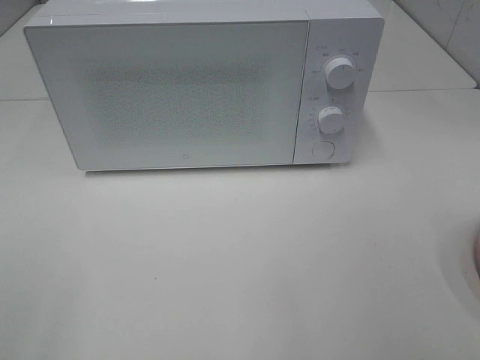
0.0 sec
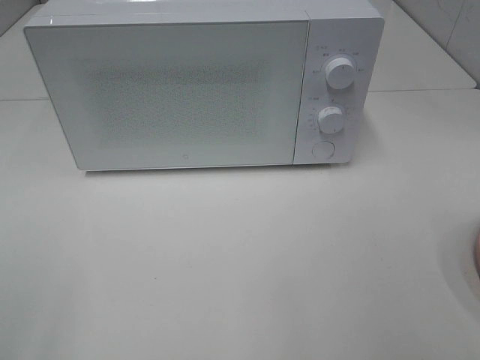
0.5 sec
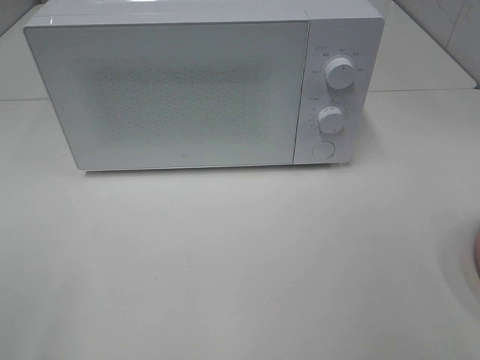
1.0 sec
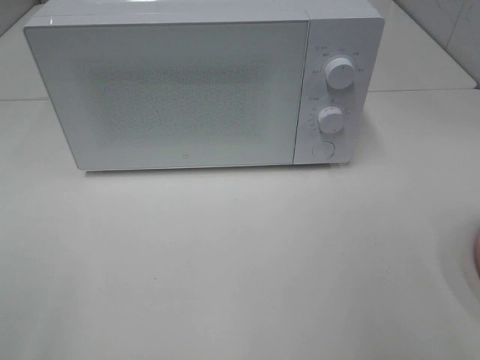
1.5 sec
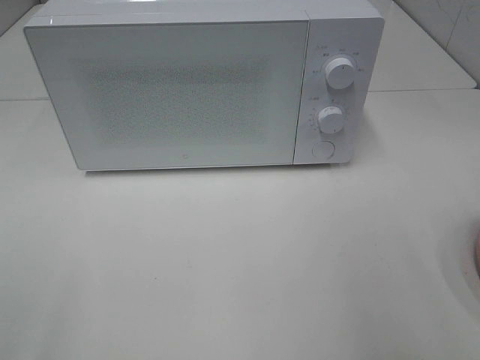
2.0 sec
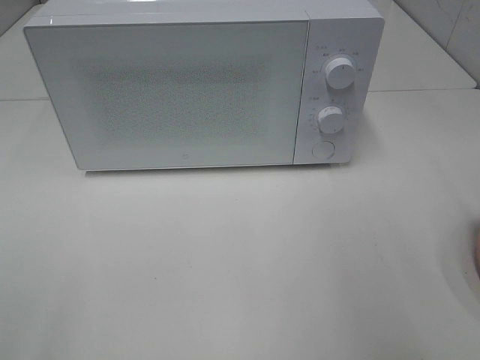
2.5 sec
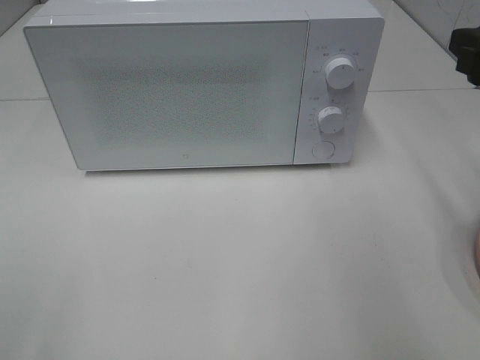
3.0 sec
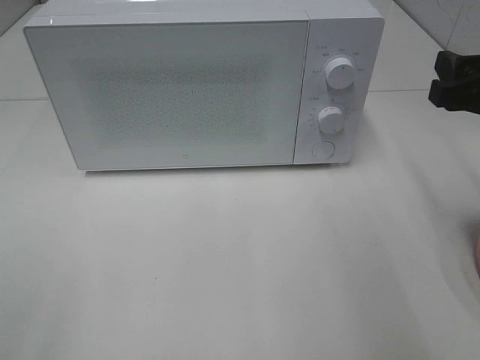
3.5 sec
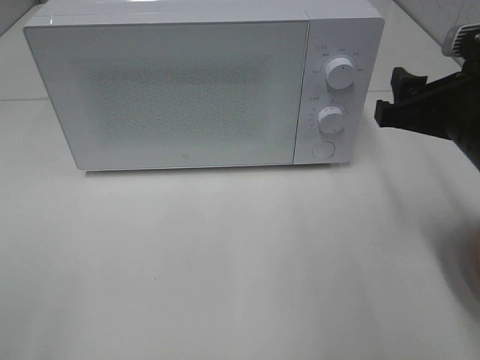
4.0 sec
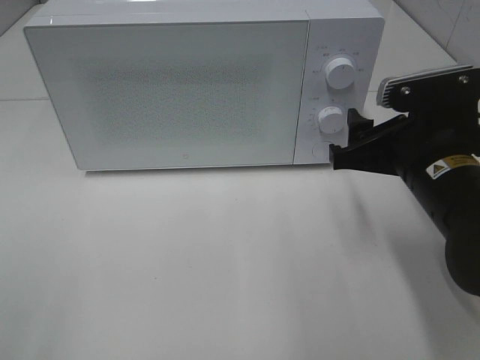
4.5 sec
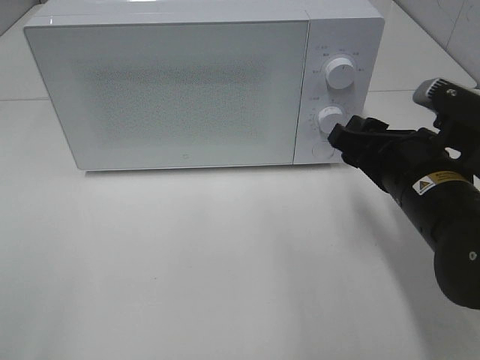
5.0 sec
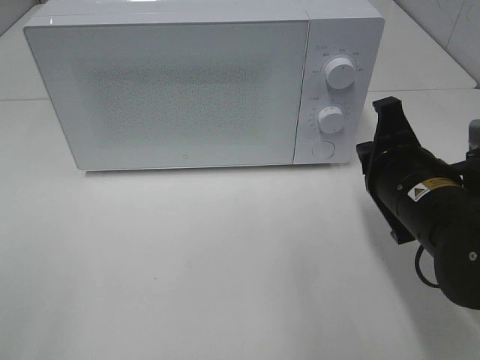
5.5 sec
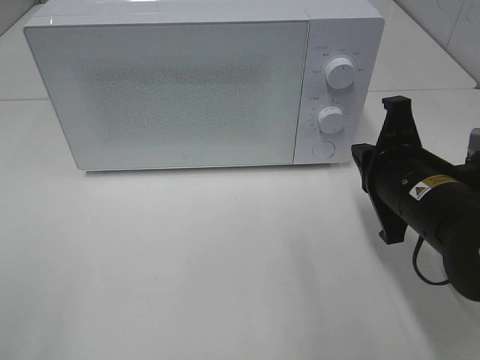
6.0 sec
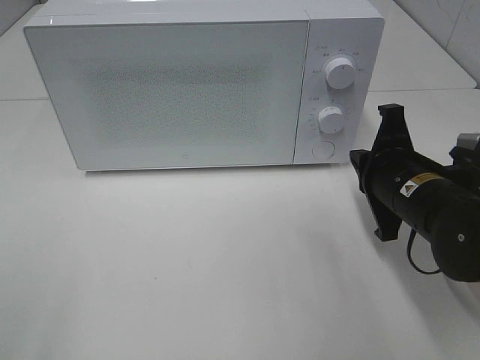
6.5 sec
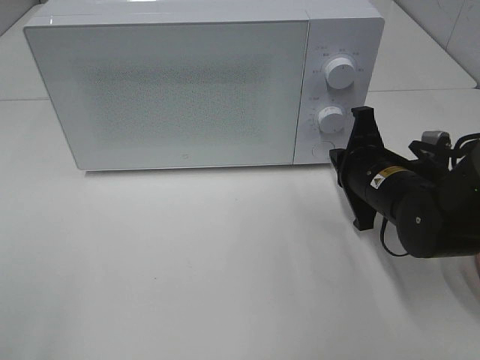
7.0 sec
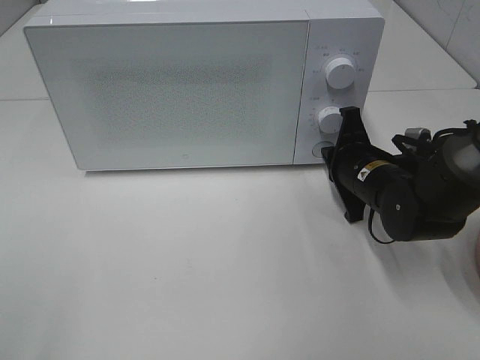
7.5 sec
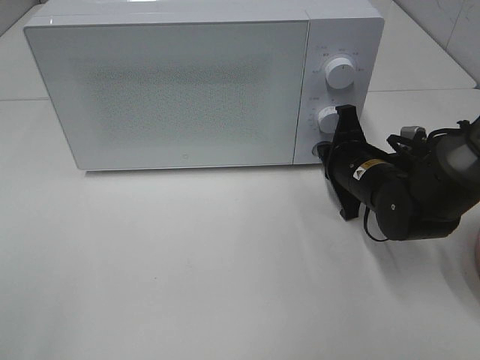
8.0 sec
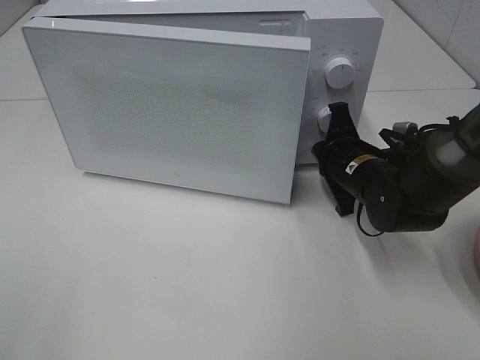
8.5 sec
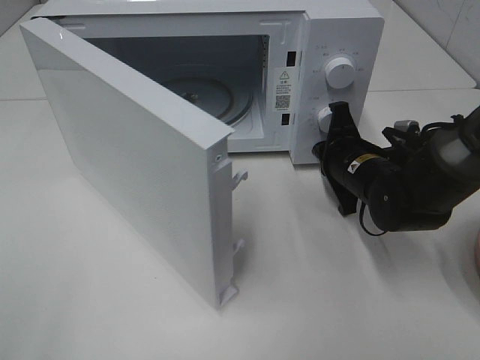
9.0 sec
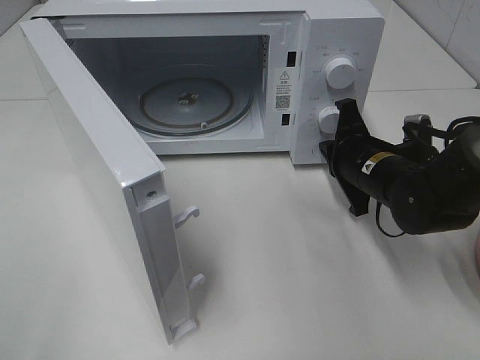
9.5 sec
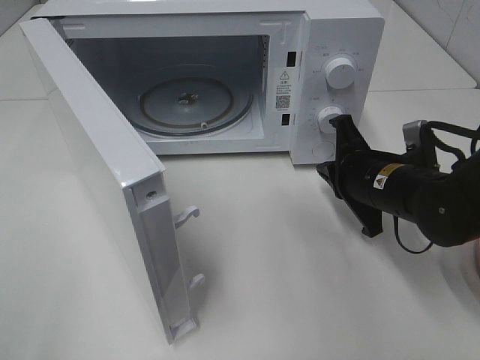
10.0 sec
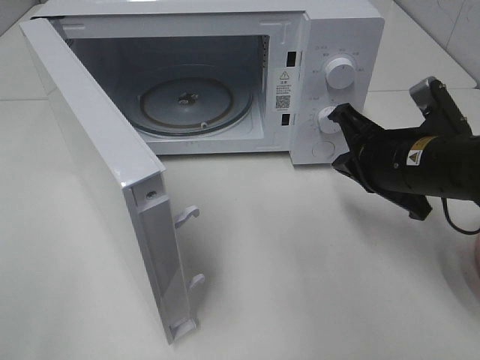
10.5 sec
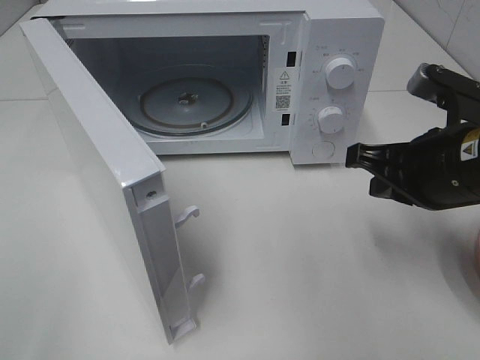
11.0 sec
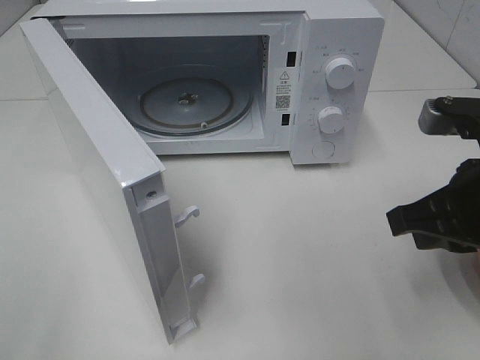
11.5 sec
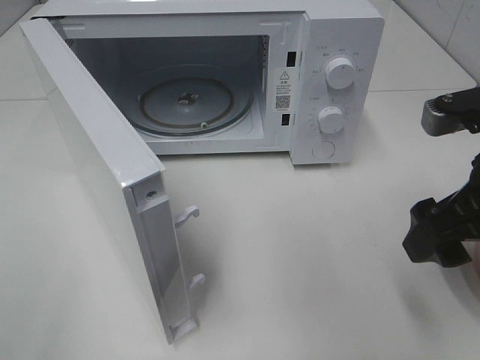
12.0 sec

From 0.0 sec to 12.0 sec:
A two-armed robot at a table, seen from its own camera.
Task of the whole recording: Heat the burger.
Step, from 0.0 sec to 9.5 sec: Right hand: press the switch.
From 2.0 sec to 4.0 sec: The right gripper is displaced forward, downward and to the left by some 15 cm.
From 4.0 sec to 6.0 sec: The right gripper is displaced downward by approximately 5 cm, and closes its fingers.
From 6.0 sec to 8.0 sec: The right gripper shifts approximately 15 cm forward and downward.
From 10.0 sec to 12.0 sec: The right gripper goes roughly 15 cm upward, backward and to the right, and opens.

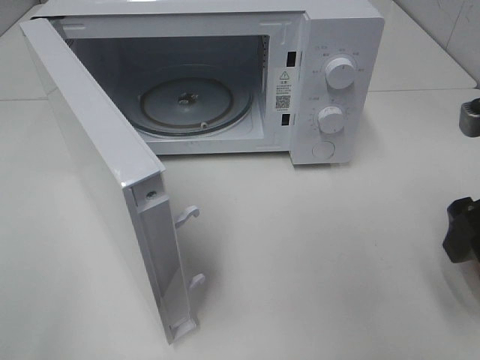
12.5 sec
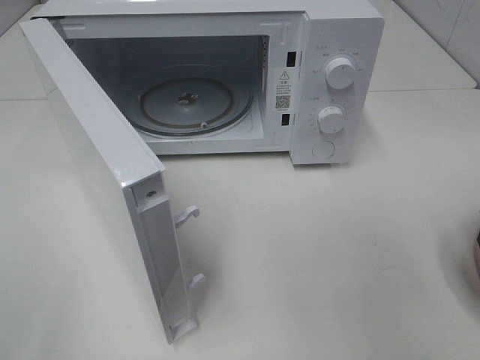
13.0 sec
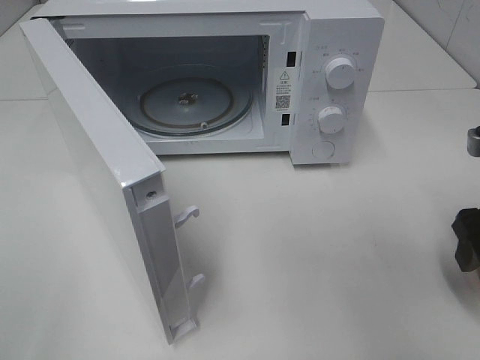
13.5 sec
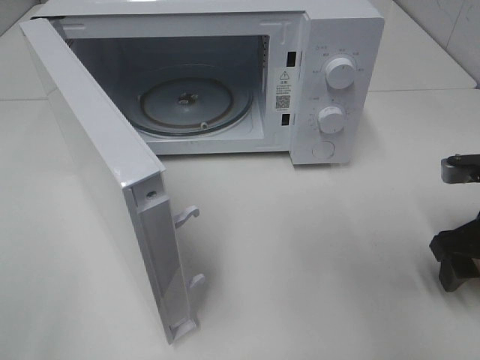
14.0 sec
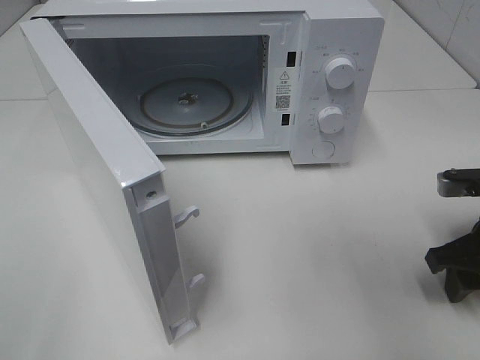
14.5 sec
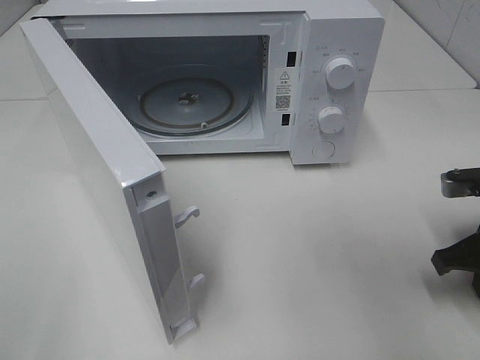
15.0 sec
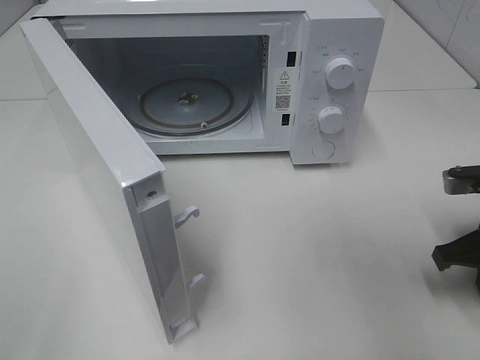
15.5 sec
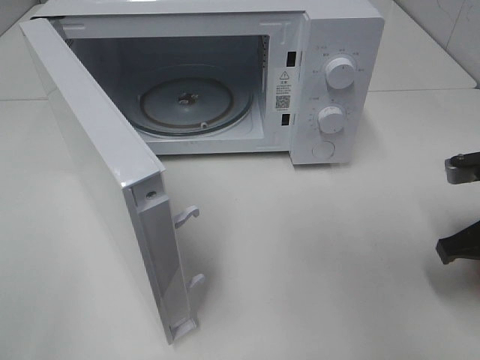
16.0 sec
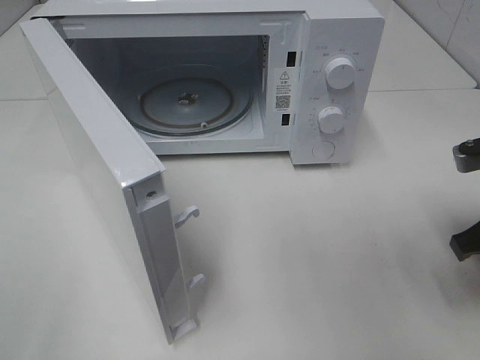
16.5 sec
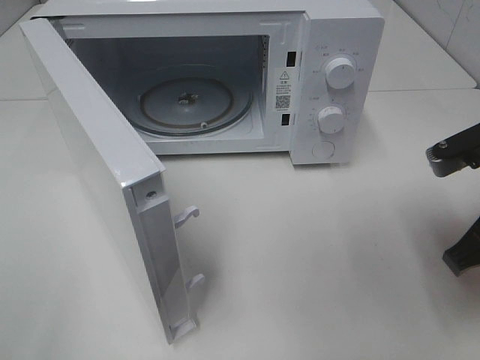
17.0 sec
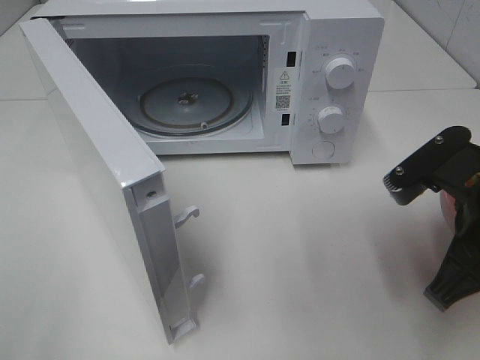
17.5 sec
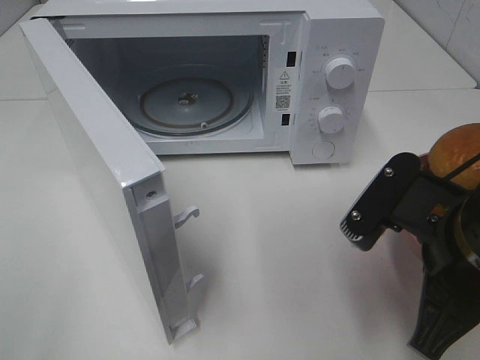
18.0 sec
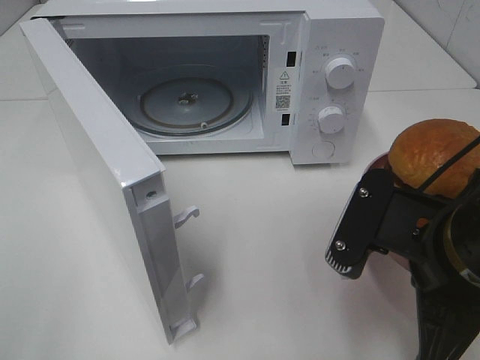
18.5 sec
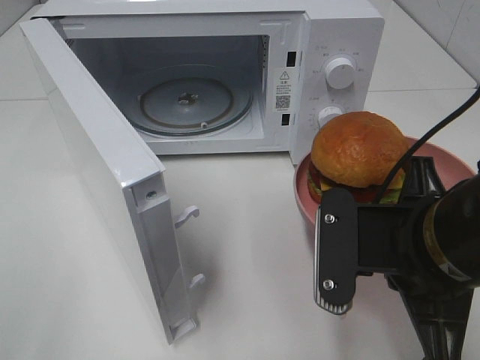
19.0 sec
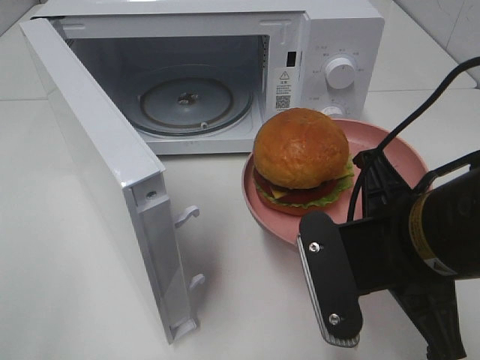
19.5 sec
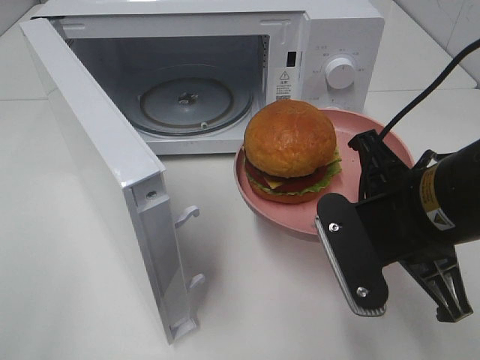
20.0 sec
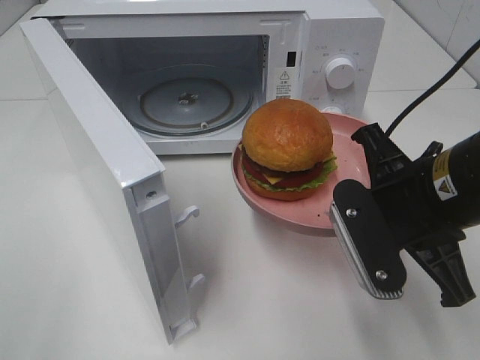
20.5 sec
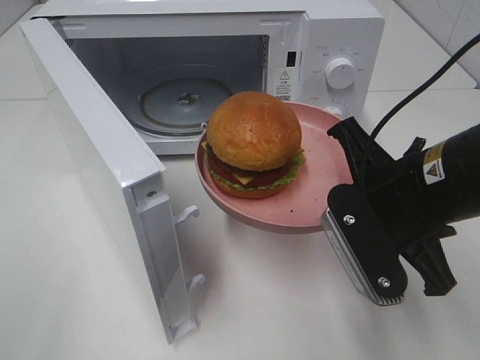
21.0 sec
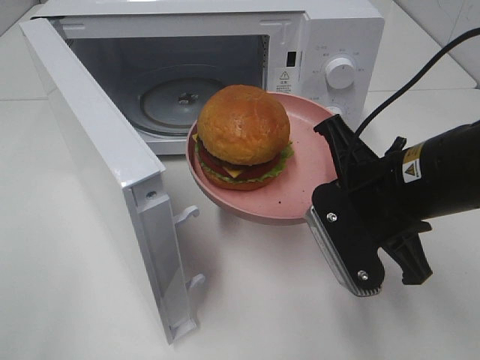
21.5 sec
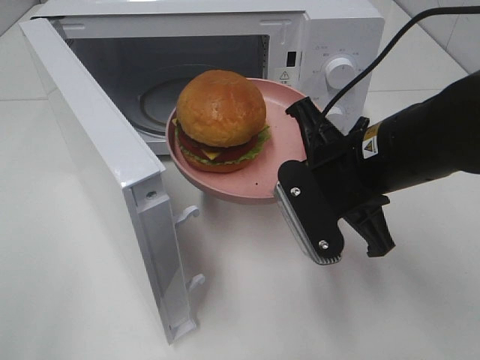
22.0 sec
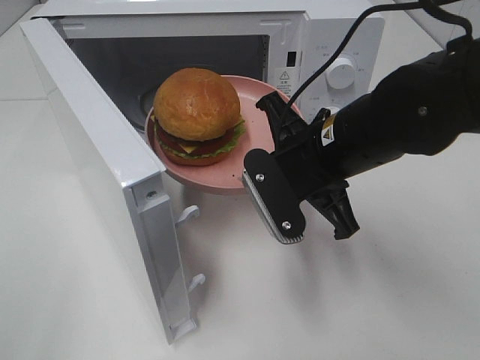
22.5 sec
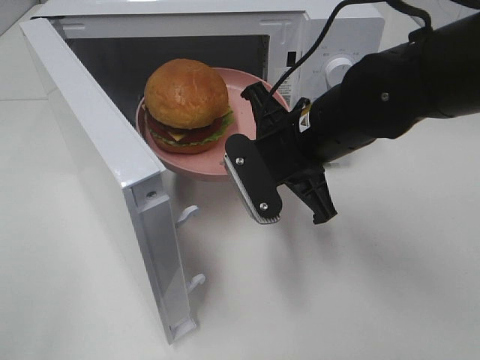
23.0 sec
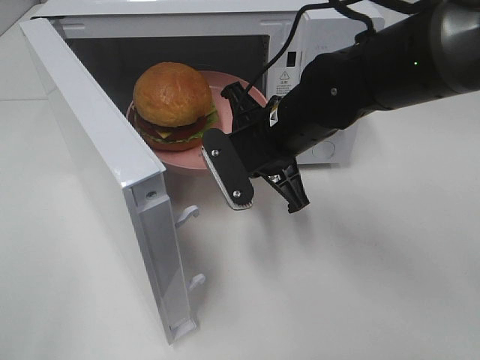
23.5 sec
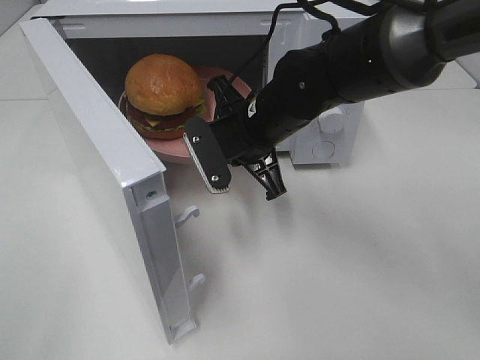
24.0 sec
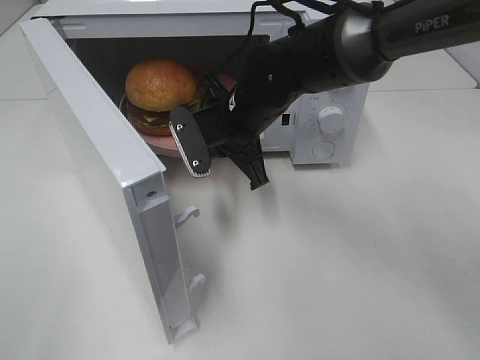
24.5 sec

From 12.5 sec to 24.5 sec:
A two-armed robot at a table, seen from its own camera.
Task of the whole recording: Heat the burger.
Step, from 12.5 sec to 15.0 sec: Right hand: grab the plate with the hamburger.
From 12.5 sec to 14.5 sec: The right gripper moves downward, roughly 10 cm.
From 14.5 sec to 16.5 sec: The right gripper goes approximately 5 cm upward, and closes up.
From 16.5 sec to 18.5 sec: The right gripper heads to the left and backward, covering roughly 15 cm.
From 18.5 sec to 20.5 sec: The right gripper shifts roughly 5 cm forward.
From 20.5 sec to 22.5 sec: The right gripper is displaced to the left and forward by roughly 10 cm.
From 22.5 sec to 24.5 sec: The right gripper shifts some 15 cm forward and to the left.

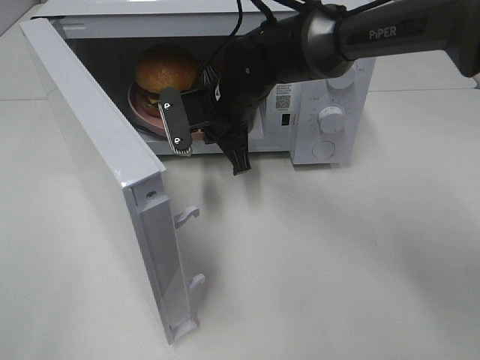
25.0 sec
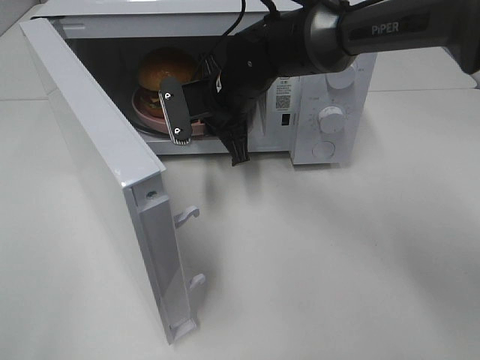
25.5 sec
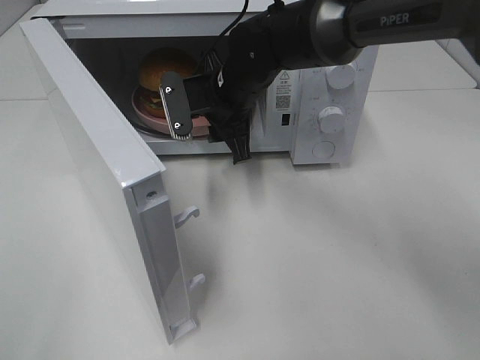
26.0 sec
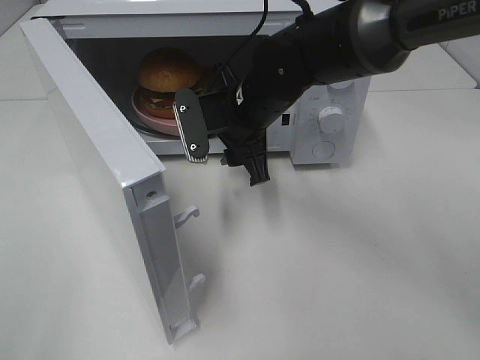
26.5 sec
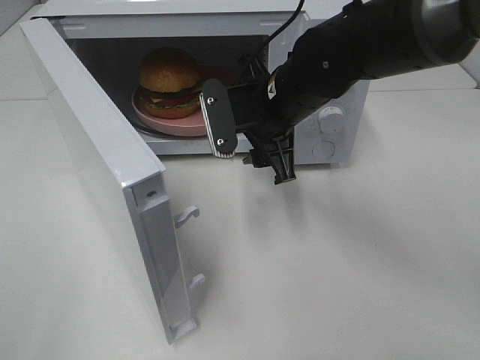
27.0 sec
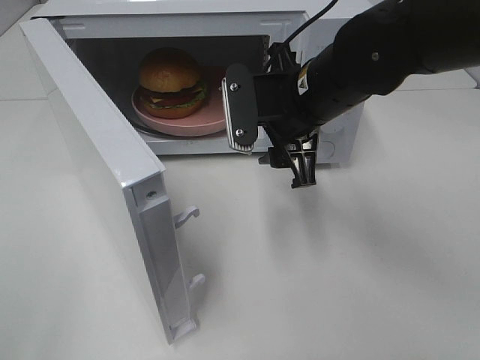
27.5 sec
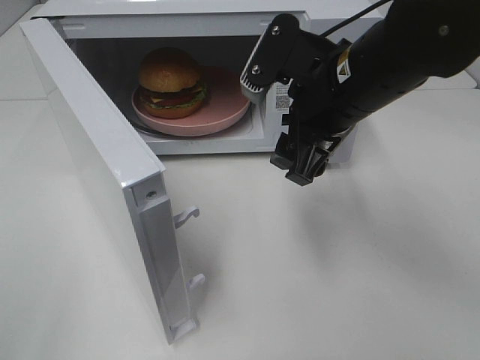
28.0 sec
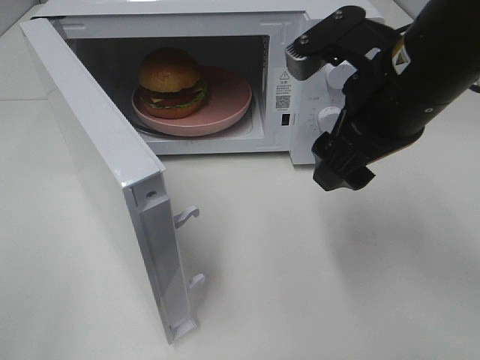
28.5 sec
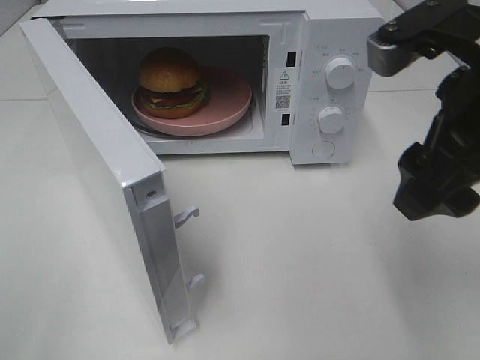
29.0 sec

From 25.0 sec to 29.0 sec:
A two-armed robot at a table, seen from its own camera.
Task of the whole recording: Heat the burger.
From 25.0 sec to 27.0 sec: The right gripper travels to the right and backward by some 10 cm, and opens its fingers.
From 27.0 sec to 29.0 sec: The right gripper heads backward, to the right and upward, covering approximately 20 cm.
